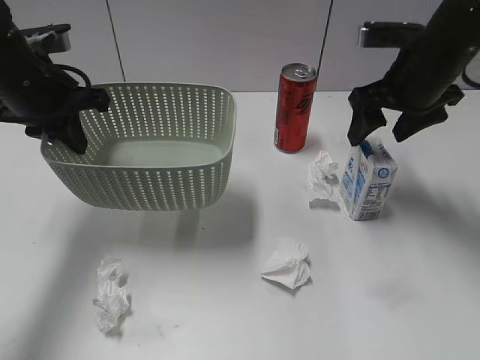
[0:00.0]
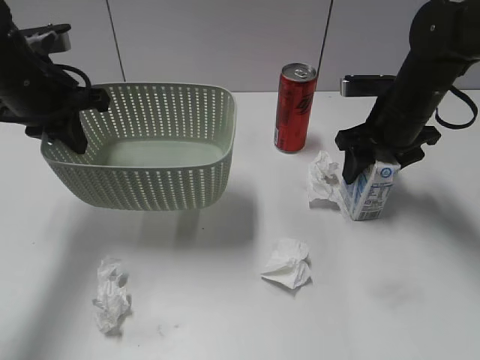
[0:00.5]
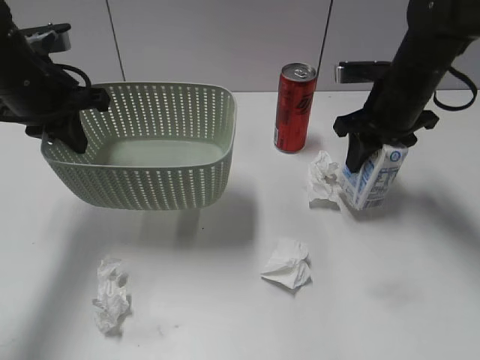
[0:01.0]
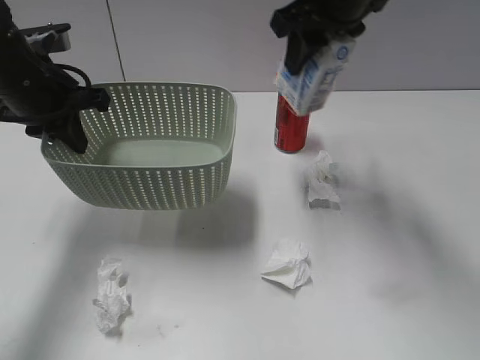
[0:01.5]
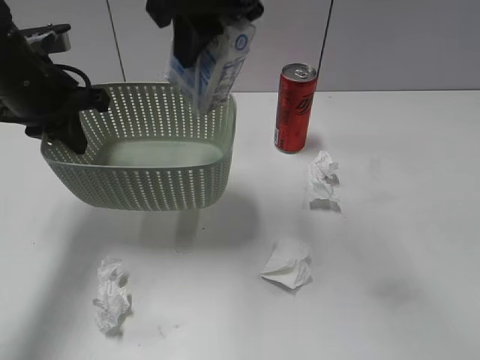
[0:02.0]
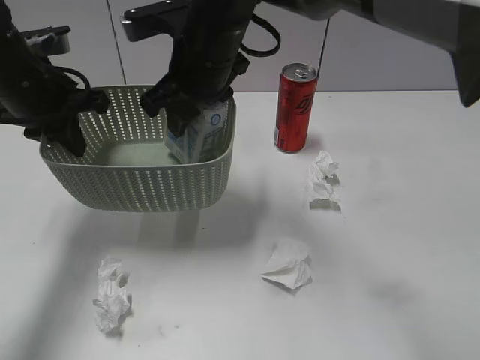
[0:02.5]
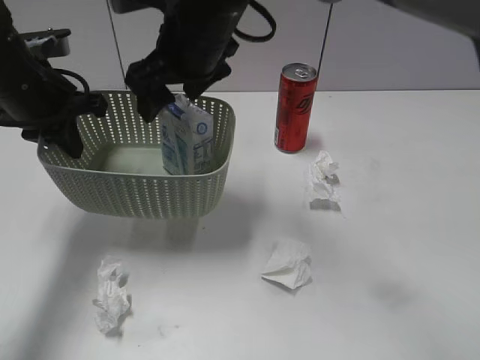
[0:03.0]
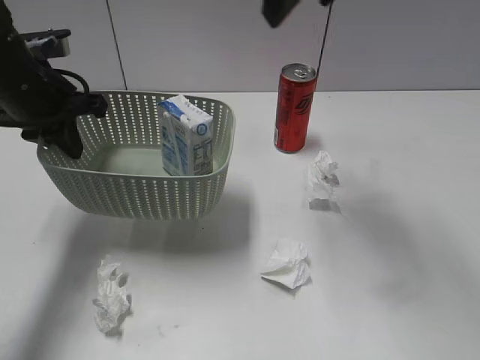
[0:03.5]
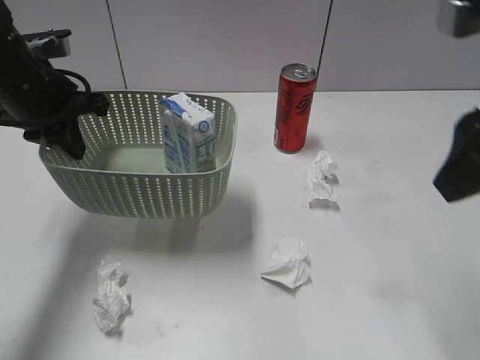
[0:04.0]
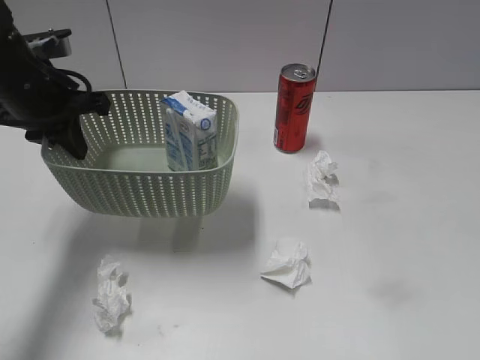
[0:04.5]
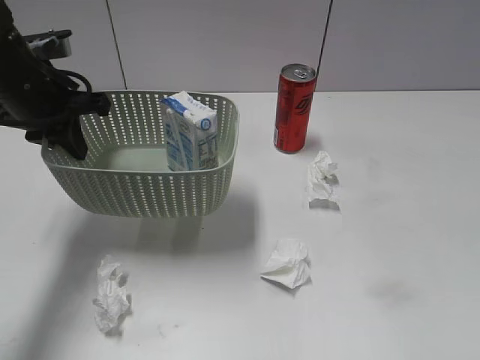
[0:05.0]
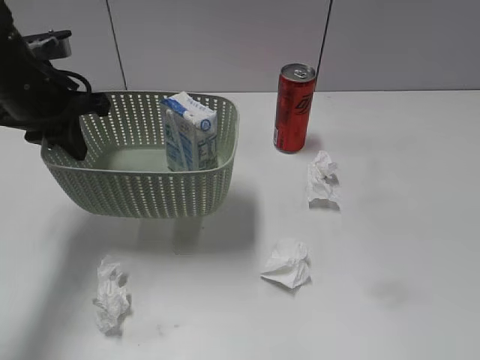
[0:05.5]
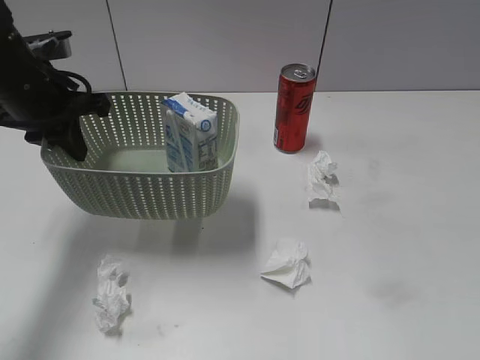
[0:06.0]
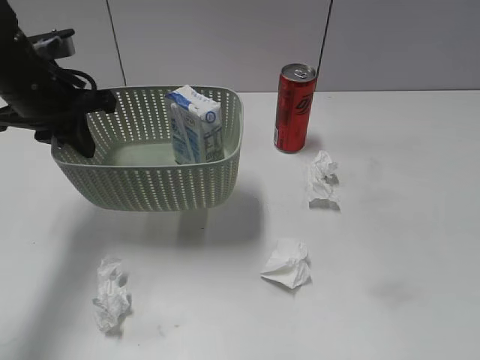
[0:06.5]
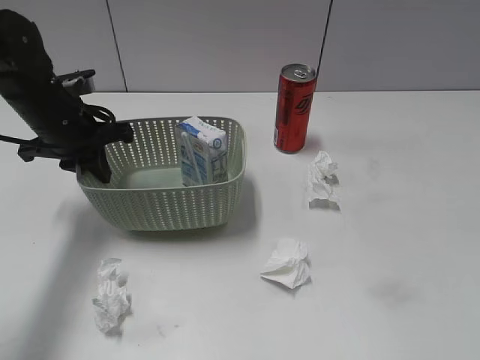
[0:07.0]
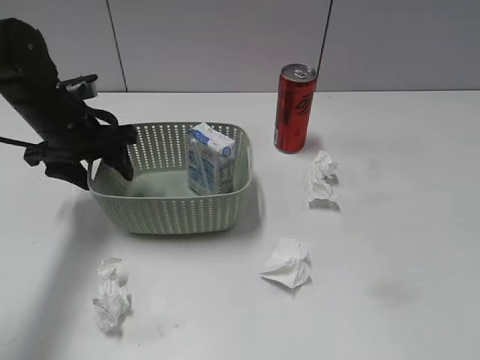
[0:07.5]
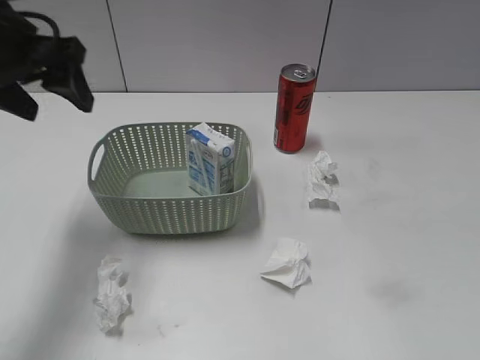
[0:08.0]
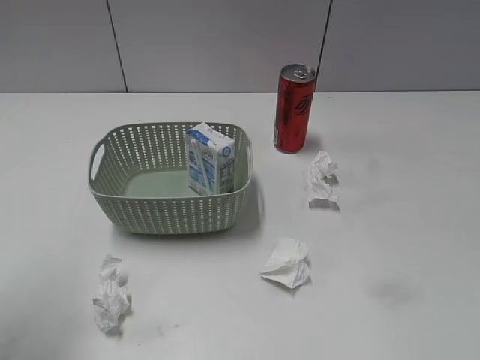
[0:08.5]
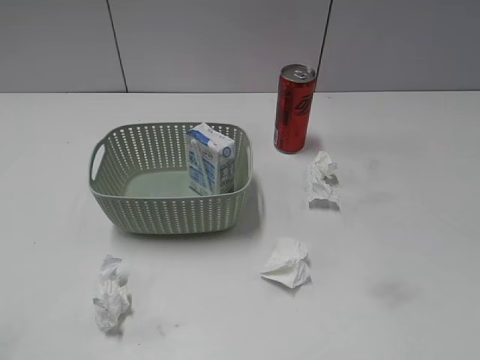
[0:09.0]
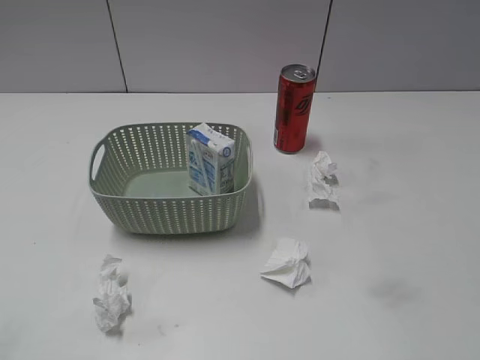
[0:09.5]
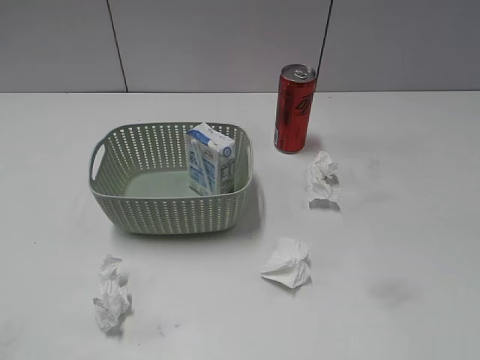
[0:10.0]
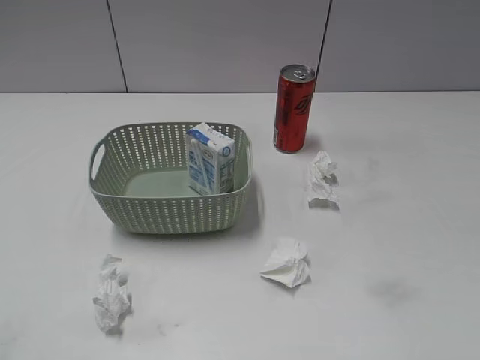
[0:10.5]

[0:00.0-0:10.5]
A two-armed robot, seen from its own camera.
Step, 0:01.0 to 0:03.0: Place the milk in the basket with right gripper.
Step, 0:03.5 to 0:07.5: Place the basket on the table with left gripper.
0:00.0 to 0:02.0: The right gripper heads to the left and upward, covering approximately 25 cm, and closes.
0:02.0 to 0:04.0: The right gripper goes approximately 25 cm to the right and backward, and opens.
0:04.0 to 0:06.5: The right gripper travels backward and to the right by some 20 cm.
0:06.5 to 0:08.5: The left gripper travels backward and upward by about 20 cm, and opens up.
0:08.5 to 0:10.5: The left gripper travels backward and downward by some 20 cm.

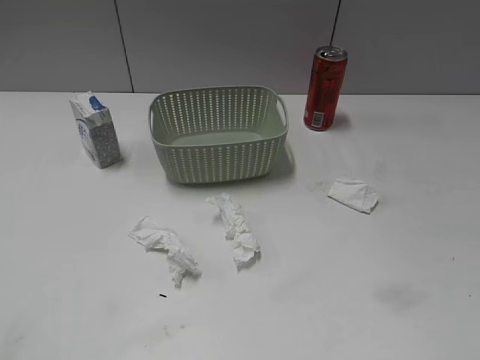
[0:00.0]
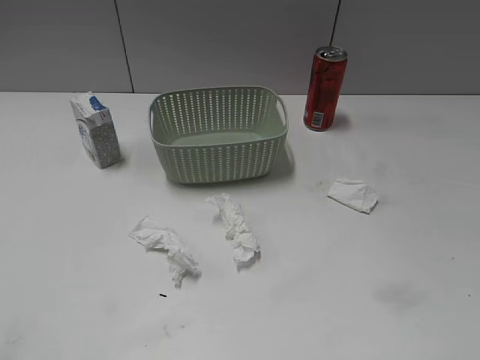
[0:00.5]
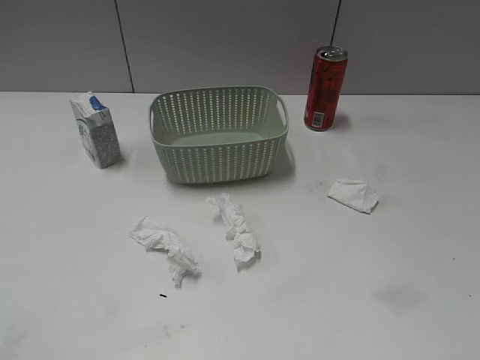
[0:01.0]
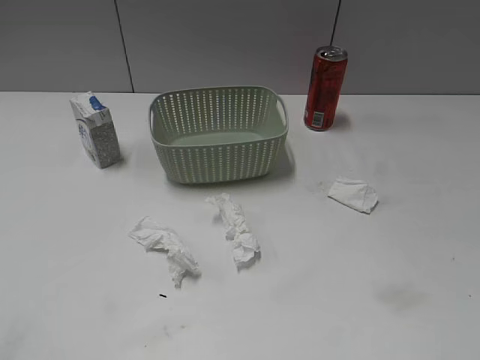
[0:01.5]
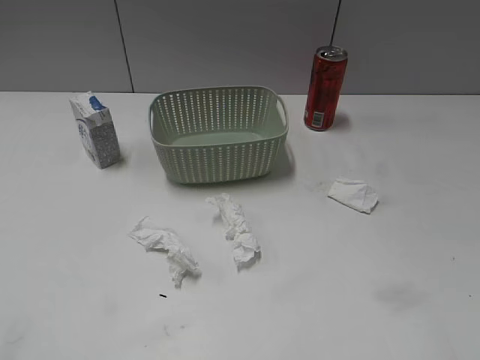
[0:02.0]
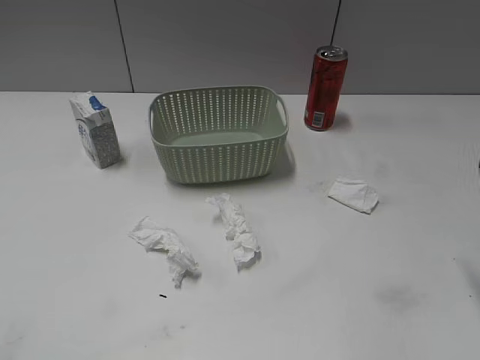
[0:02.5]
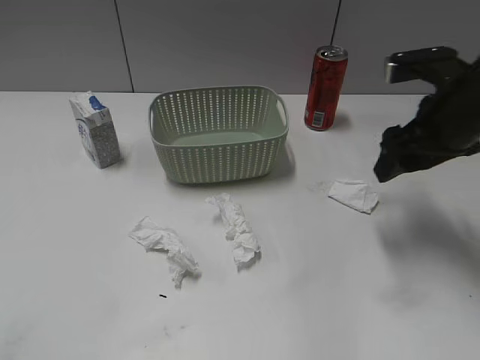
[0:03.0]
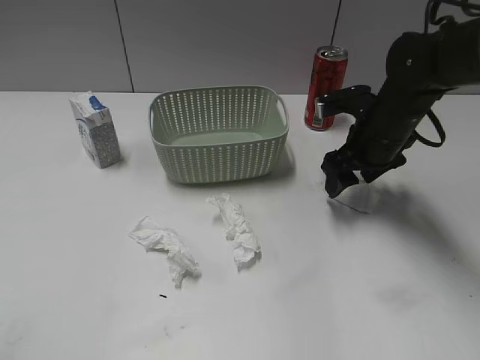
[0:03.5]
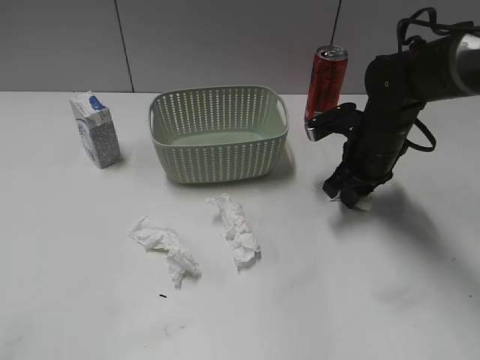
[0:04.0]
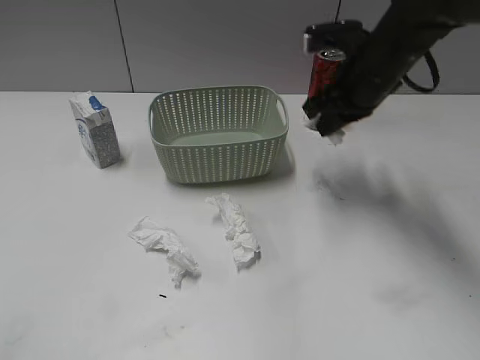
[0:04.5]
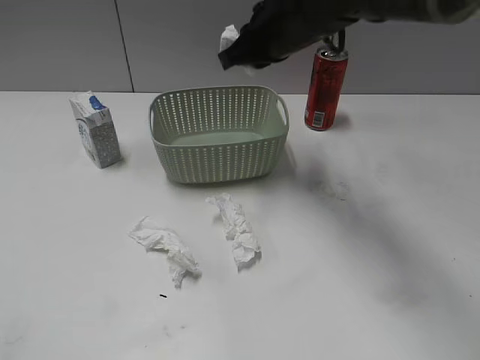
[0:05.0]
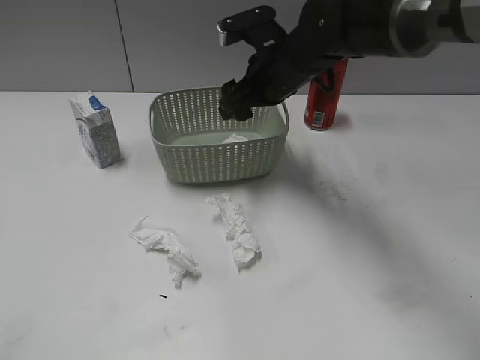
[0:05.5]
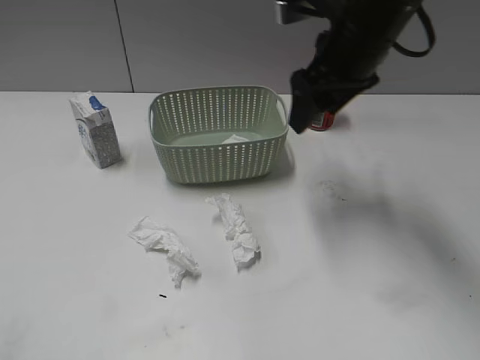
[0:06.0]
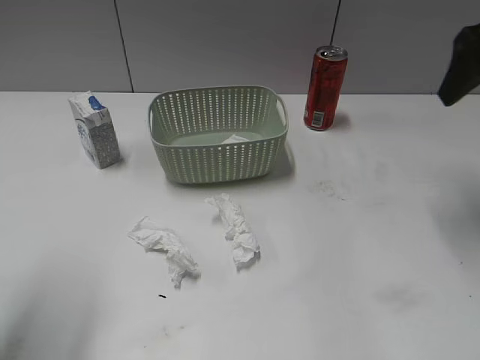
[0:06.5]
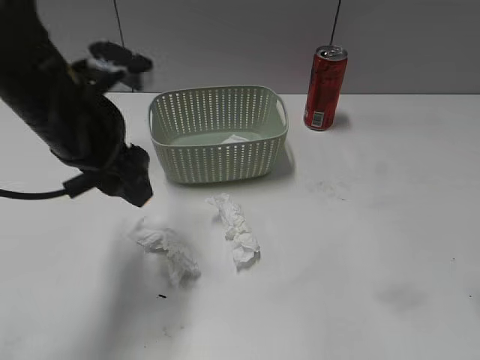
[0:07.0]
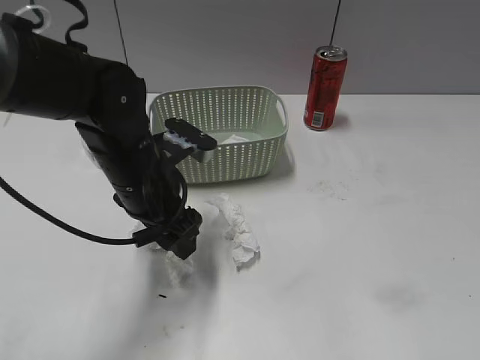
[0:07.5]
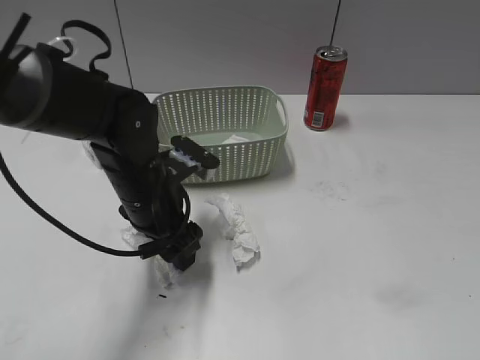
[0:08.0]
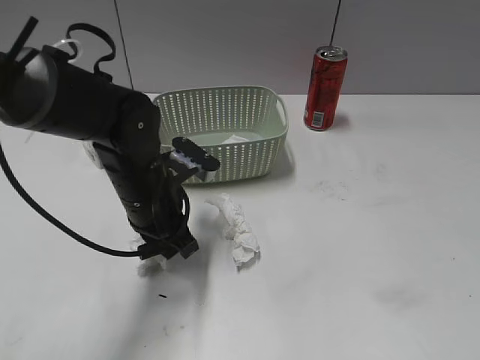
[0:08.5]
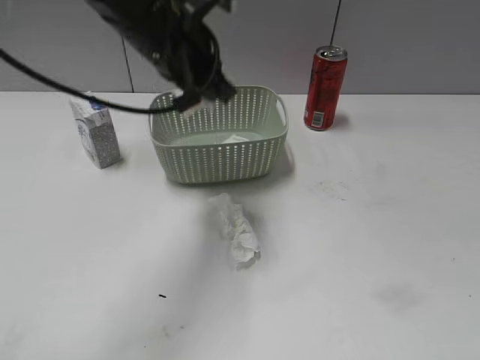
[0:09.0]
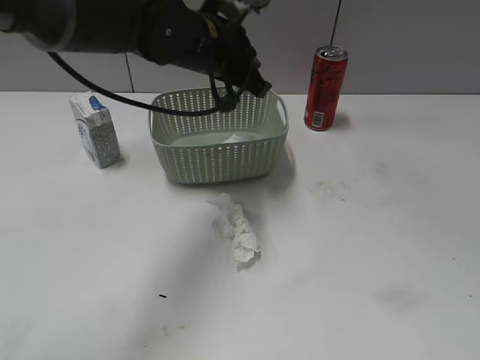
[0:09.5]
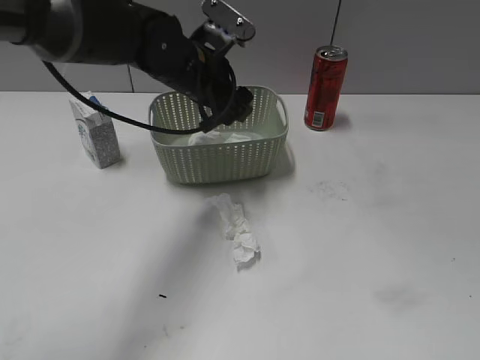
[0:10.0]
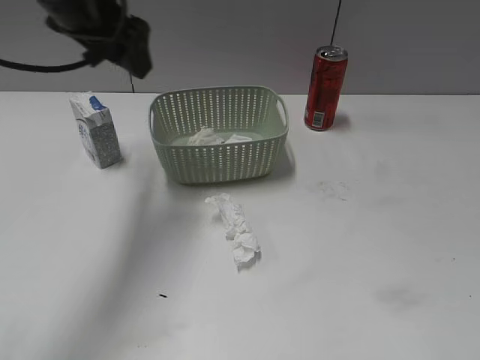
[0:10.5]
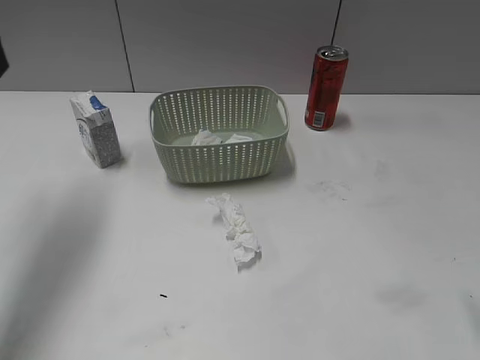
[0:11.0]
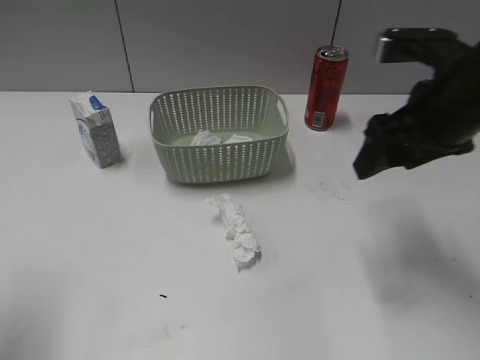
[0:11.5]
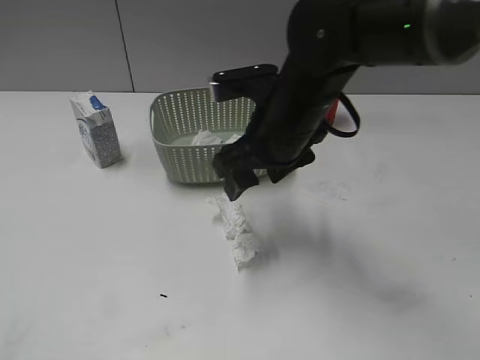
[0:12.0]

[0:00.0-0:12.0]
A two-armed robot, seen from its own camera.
Step, 0:02.5 to 0:04.0: Grasp the waste paper with right gripper.
Step, 0:04.5 to 0:05.5: Place the waste paper in the basket with right gripper.
Step, 0:06.0 to 0:08.5: Grasp the waste paper with left gripper.
Step, 0:09.0 to 0:10.0: Place the waste paper in the basket with left gripper.
0:02.0 to 0:04.0: The right gripper goes approximately 35 cm forward, downward and to the left, and closes up.
0:04.0 to 0:06.0: The right gripper goes roughly 15 cm upward, and opens; the left gripper changes place by about 5 cm.
0:06.0 to 0:08.0: The right gripper travels backward and to the right by roughly 40 cm. Meanwhile the left gripper heads forward, to the right and downward, covering some 40 cm.
0:08.0 to 0:10.0: The left gripper goes roughly 15 cm forward and upward, and closes and opens again.
0:10.0 to 0:12.0: The left gripper heads backward and to the left, covering roughly 40 cm; the right gripper goes approximately 40 cm forward and to the left.

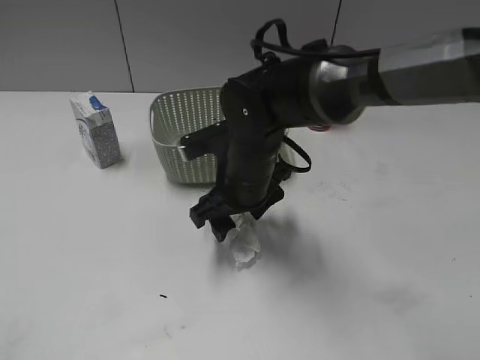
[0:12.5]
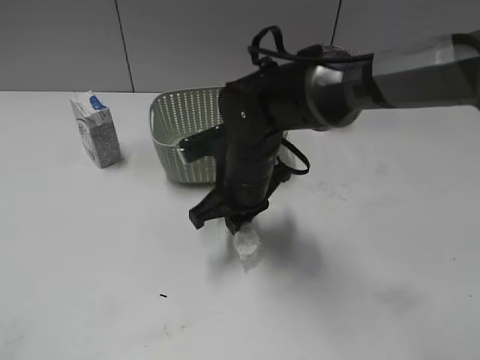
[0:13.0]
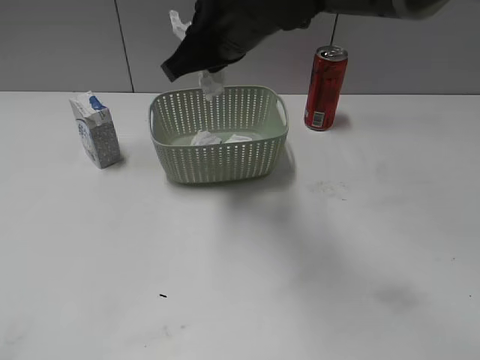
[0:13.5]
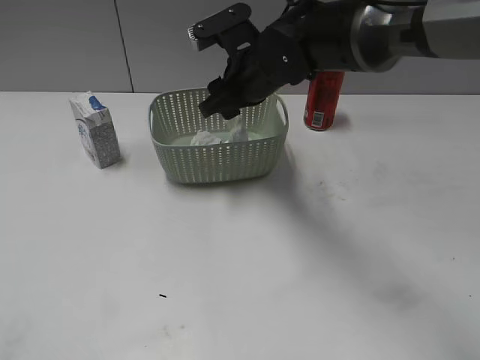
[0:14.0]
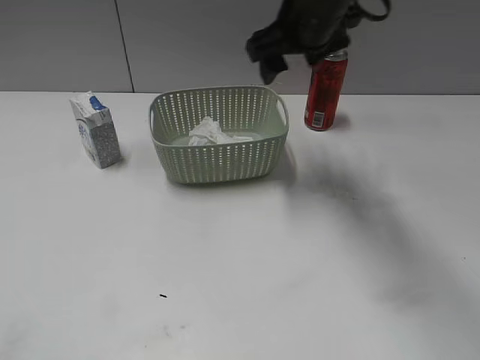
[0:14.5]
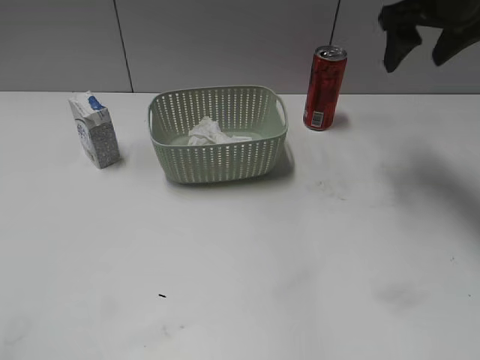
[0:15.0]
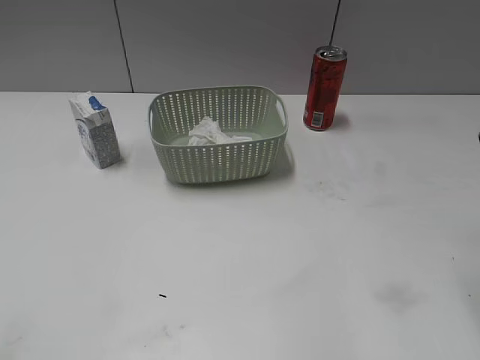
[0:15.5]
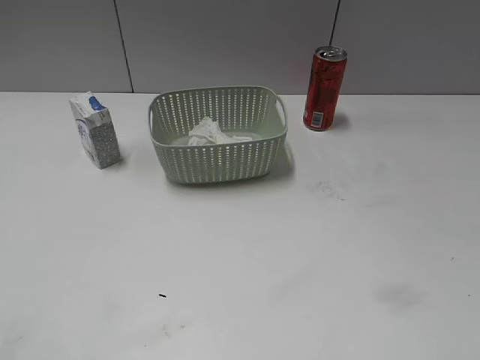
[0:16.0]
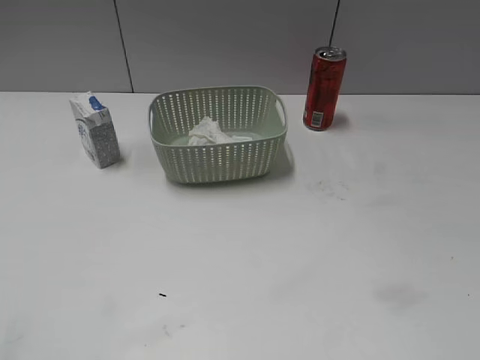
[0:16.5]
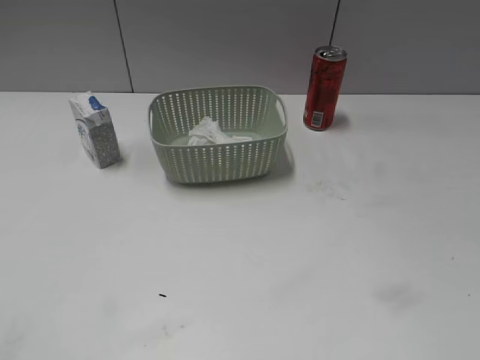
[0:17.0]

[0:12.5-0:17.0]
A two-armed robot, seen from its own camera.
Step, 0:13.5 to 0:14.0: Place the waste paper in the basket with right gripper.
0:12.5 to 0:14.5: The right gripper swings up and down, roughly 15 cm each way, with 2 reversals, and closes, then reopens.
0:14.5 to 0:17.0: The right gripper heads backward and to the right, covering about 50 cm.
